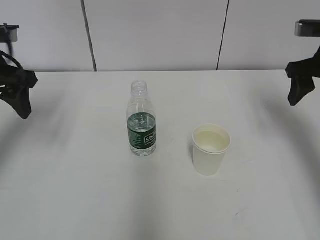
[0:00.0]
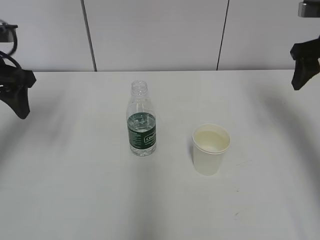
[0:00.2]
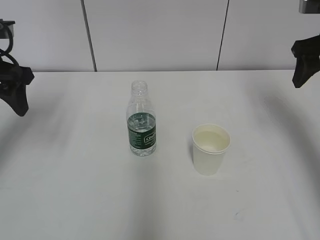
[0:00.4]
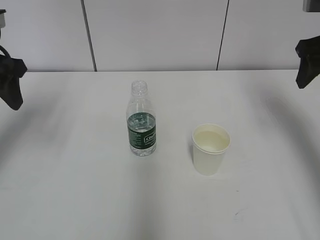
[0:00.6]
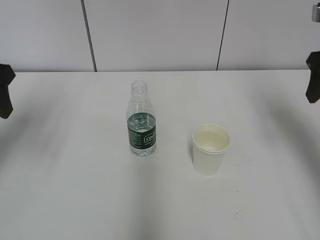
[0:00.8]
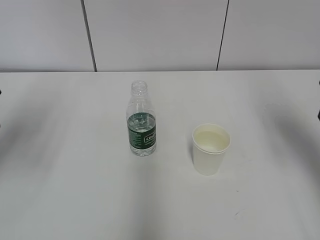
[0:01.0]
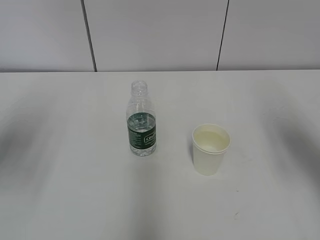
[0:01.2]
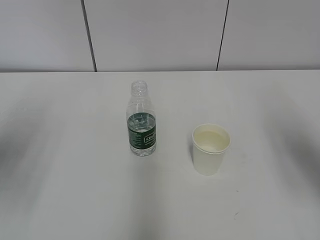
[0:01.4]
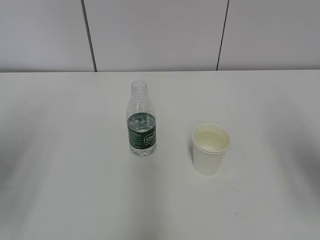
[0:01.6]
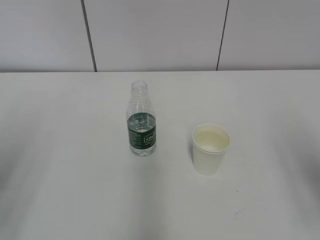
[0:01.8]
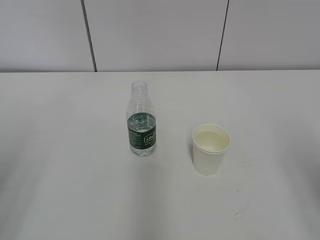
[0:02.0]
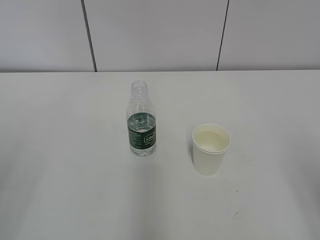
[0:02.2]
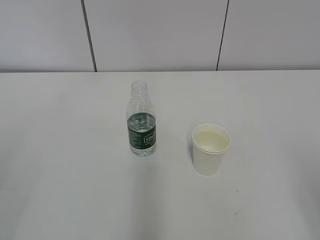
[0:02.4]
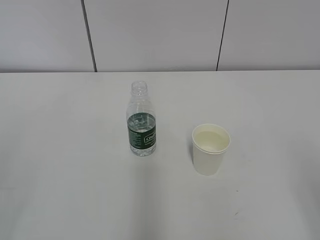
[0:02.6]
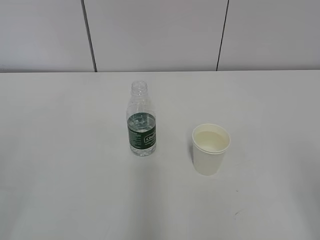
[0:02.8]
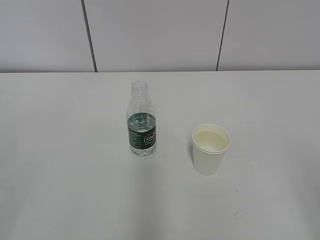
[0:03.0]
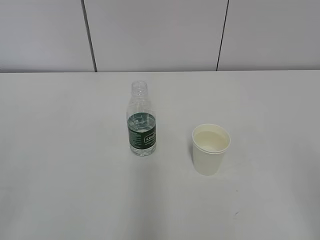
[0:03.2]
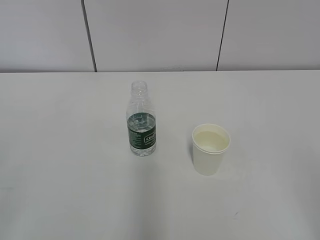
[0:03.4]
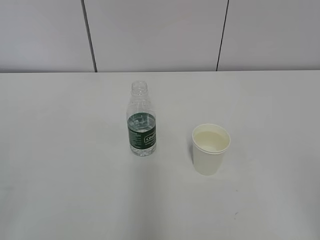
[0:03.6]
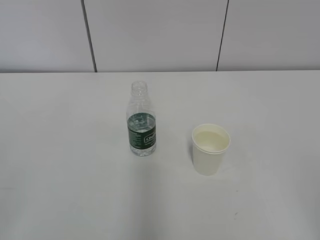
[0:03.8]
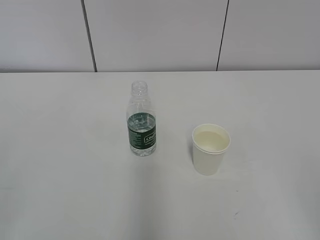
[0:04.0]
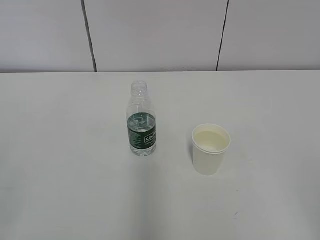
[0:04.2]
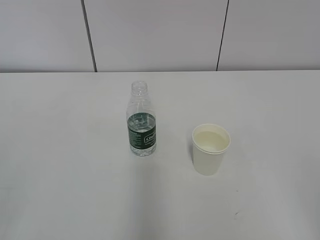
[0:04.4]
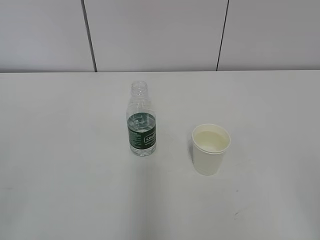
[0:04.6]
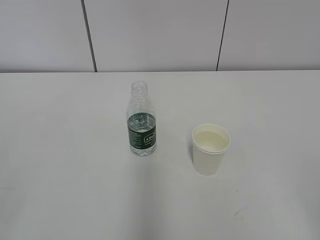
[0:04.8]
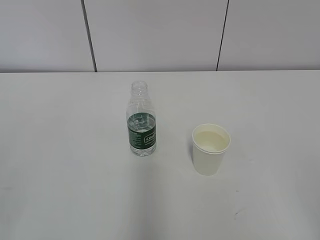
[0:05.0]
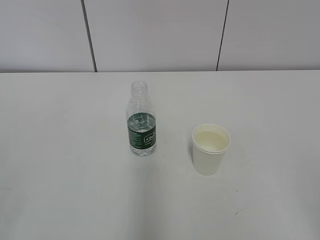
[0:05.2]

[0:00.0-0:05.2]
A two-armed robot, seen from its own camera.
0:00.0 to 0:01.8: Both grippers travel together backward, some 20 cm.
0:01.8 to 0:03.4: Both grippers move backward, some 15 cm.
